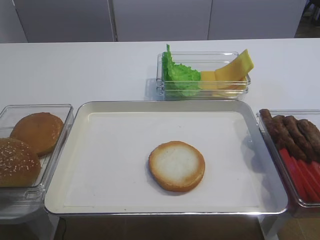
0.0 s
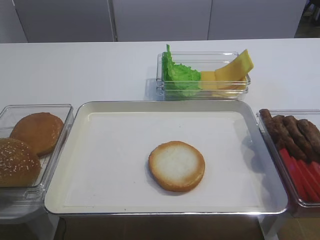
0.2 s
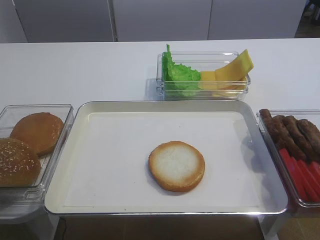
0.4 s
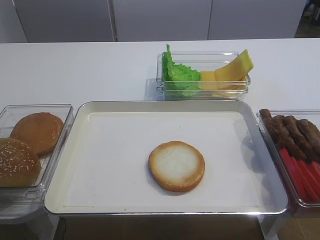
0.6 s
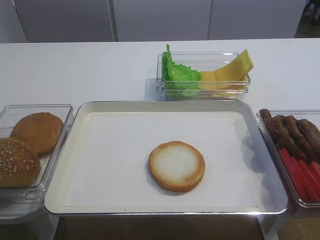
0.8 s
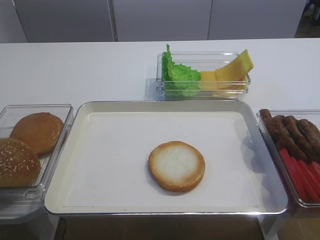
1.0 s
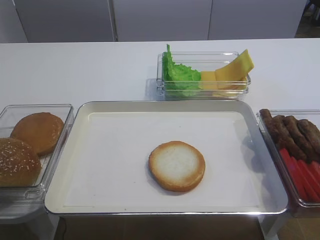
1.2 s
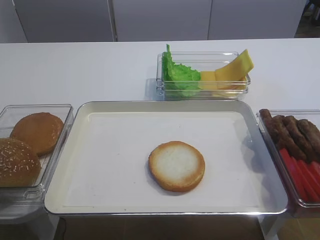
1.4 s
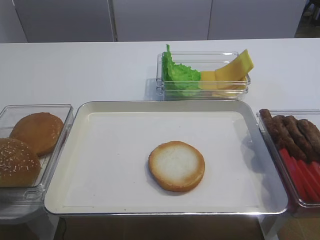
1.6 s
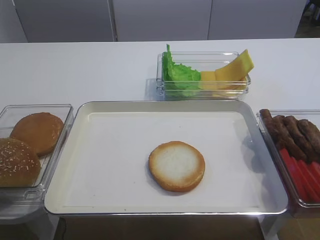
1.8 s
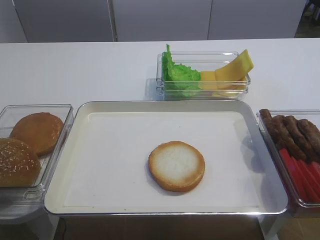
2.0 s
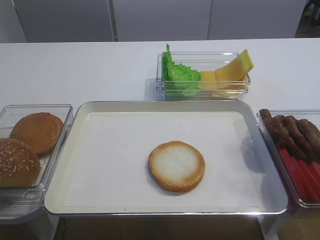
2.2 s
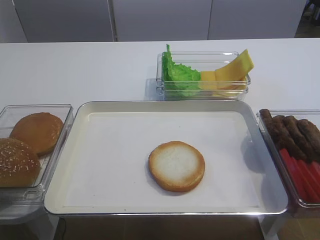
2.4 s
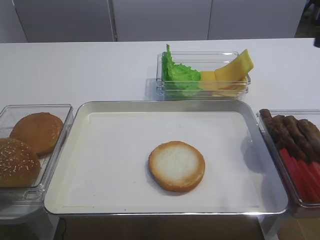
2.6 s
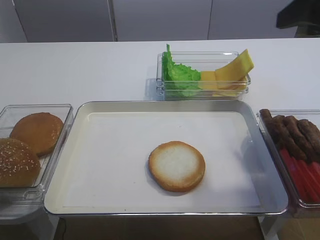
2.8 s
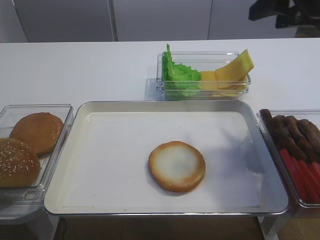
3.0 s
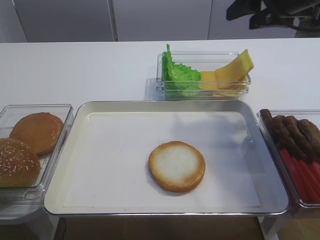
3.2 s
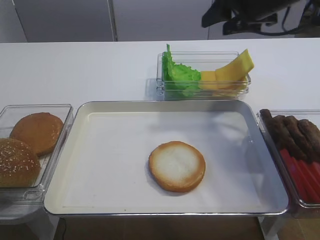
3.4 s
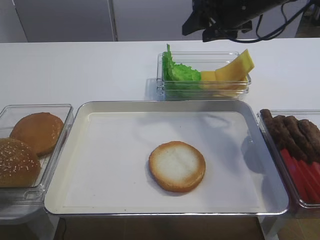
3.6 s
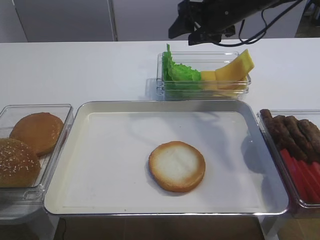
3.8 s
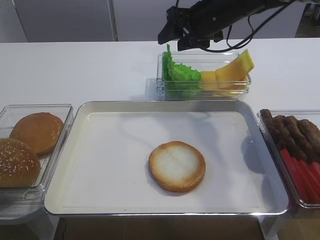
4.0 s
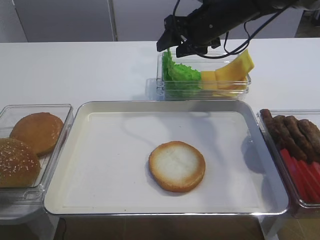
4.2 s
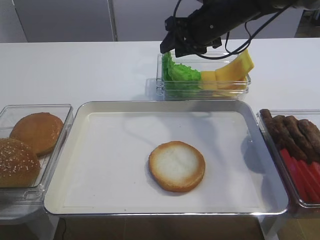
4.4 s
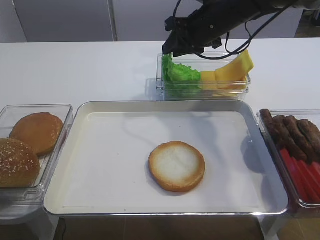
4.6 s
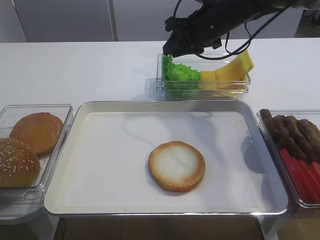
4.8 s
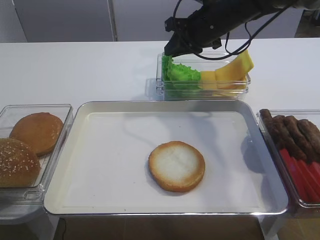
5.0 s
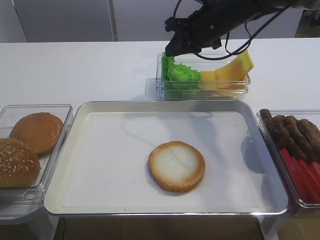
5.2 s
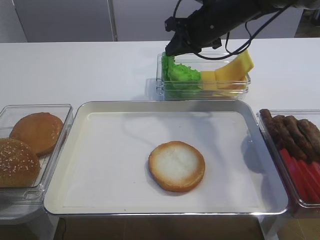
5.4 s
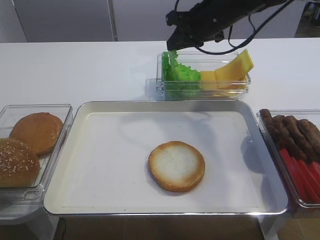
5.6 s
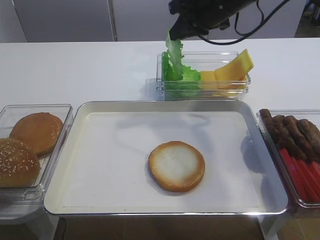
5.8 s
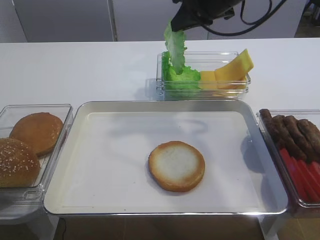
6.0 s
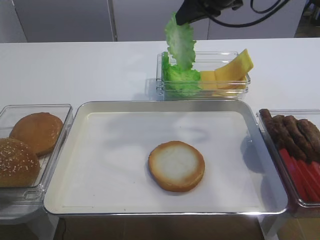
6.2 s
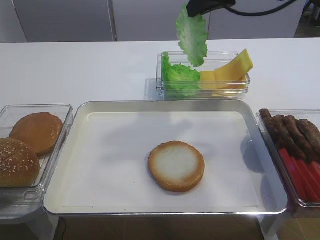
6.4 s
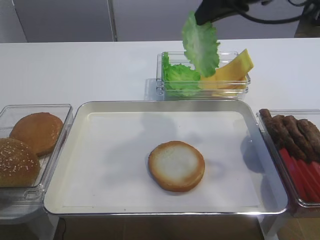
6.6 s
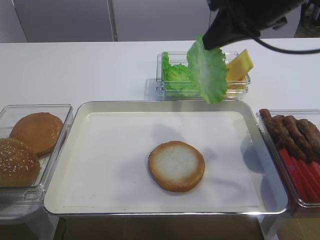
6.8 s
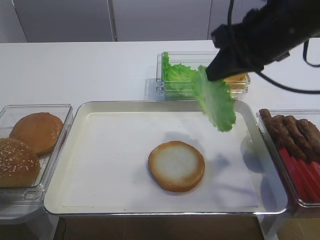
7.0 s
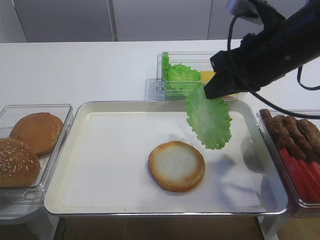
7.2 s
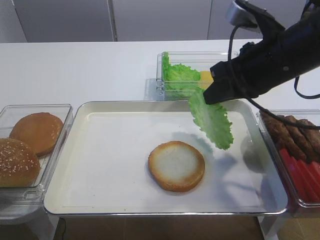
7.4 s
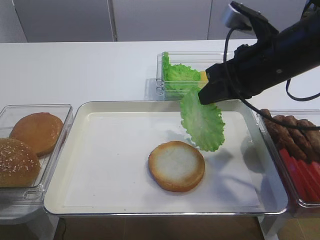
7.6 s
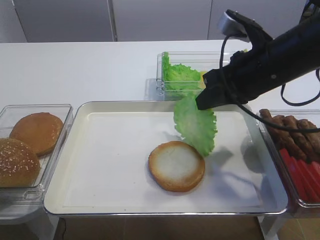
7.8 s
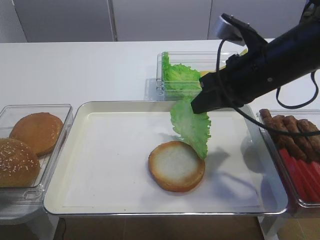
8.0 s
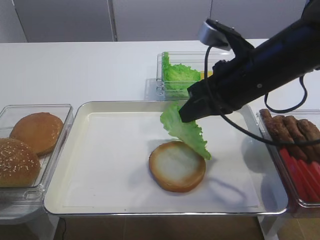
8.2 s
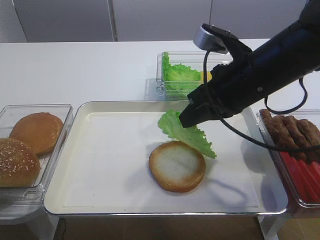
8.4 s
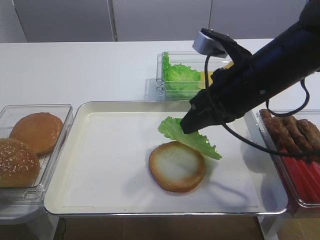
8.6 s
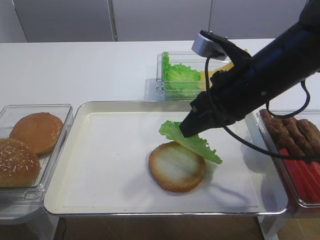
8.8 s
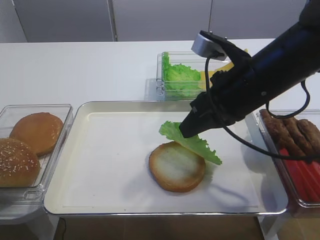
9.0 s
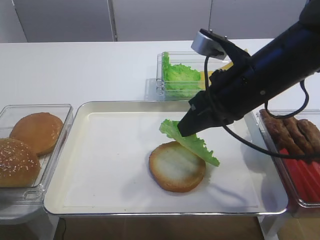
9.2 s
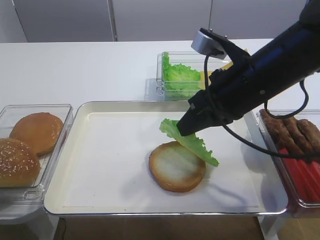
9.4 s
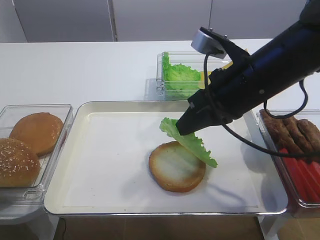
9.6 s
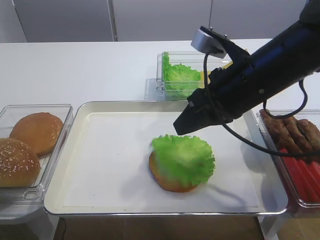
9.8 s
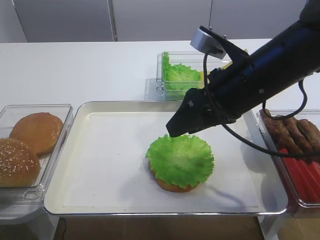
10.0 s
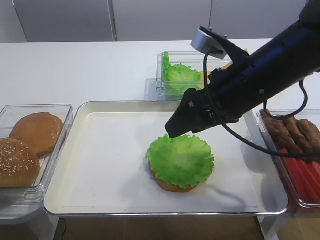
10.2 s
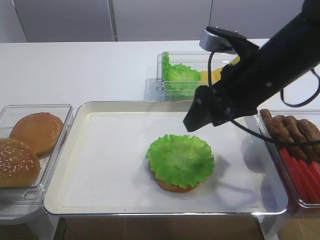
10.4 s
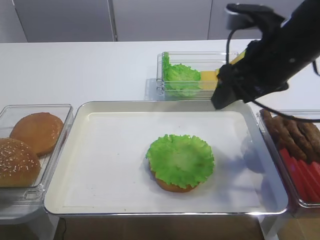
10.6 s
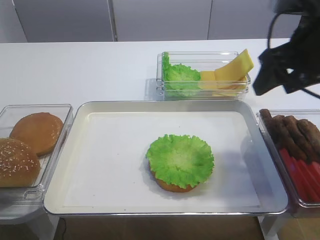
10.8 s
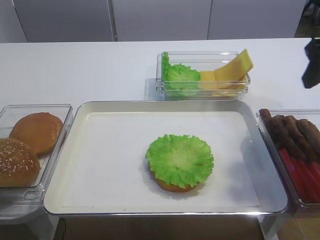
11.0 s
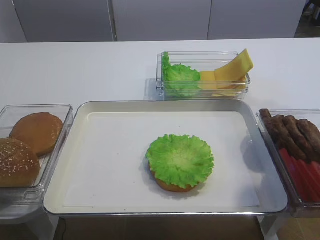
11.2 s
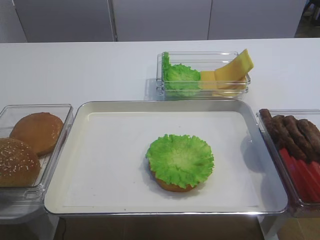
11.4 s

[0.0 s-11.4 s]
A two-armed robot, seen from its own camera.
Step, 0.0 to 6.0 s: Pick up the lettuce leaf with the right gripper.
Step, 6.2 to 9.8 s: Place the lettuce leaf on the bread slice with the right gripper.
1.4 to 2.8 s: The right gripper heads forward, covering about 25 cm.
2.8 to 4.2 s: The right gripper goes some 25 cm forward, to the left and downward.
4.2 to 5.6 s: The right gripper closes its fingers.
5.6 to 7.2 s: The right gripper moves backward, some 15 cm.
7.2 to 8.6 s: The grippers stay close to where they were, moving slightly.
8.6 to 10.0 s: The right gripper opens its fingers.
10.0 to 11.4 s: The right gripper heads to the right, upward and backward, covering some 20 cm.

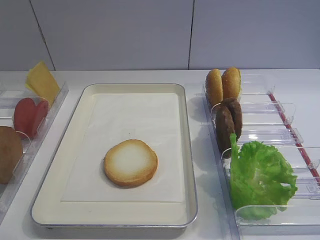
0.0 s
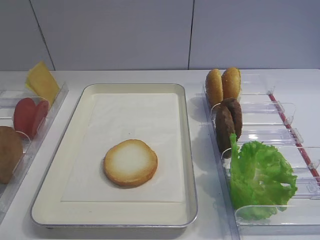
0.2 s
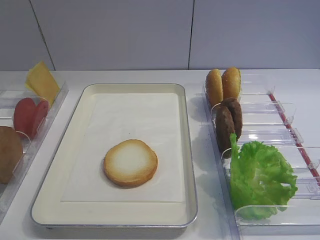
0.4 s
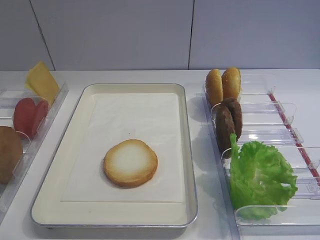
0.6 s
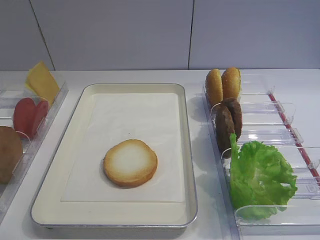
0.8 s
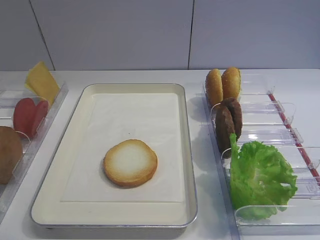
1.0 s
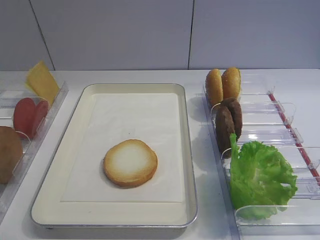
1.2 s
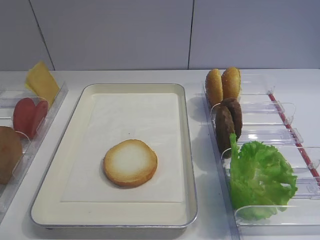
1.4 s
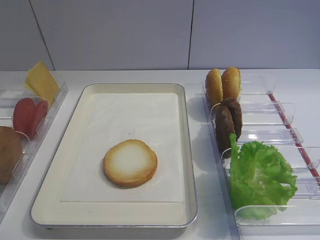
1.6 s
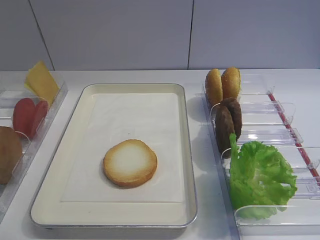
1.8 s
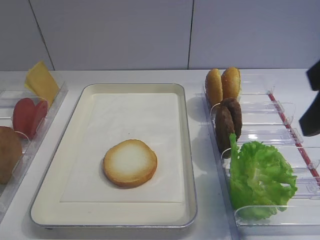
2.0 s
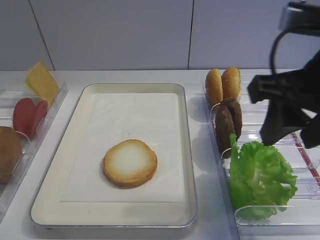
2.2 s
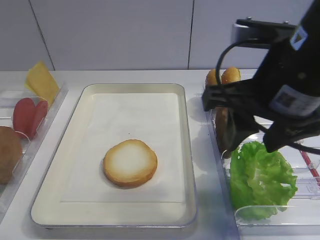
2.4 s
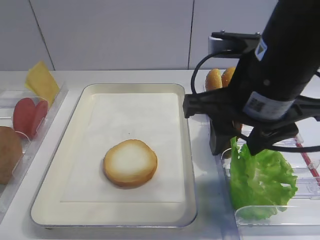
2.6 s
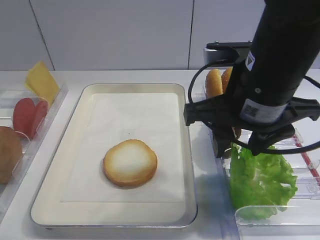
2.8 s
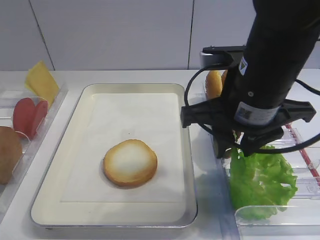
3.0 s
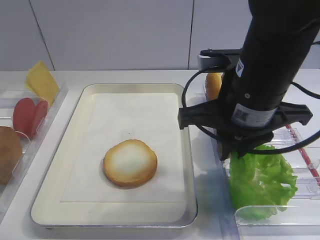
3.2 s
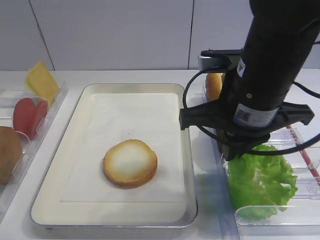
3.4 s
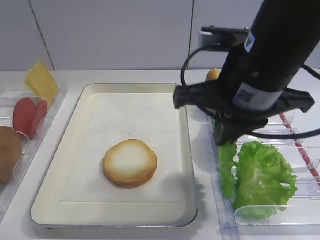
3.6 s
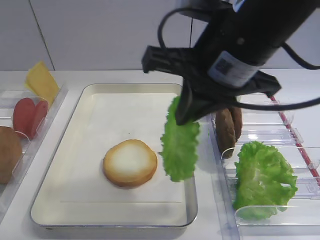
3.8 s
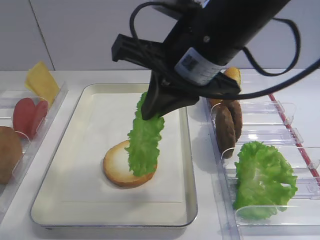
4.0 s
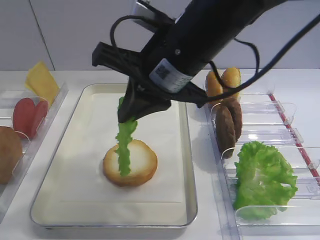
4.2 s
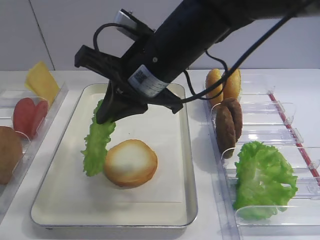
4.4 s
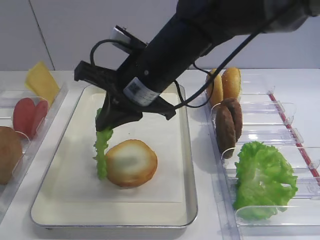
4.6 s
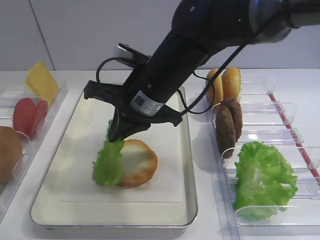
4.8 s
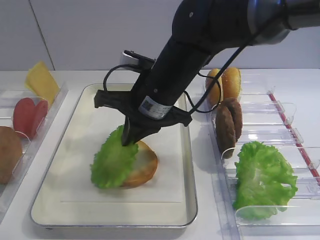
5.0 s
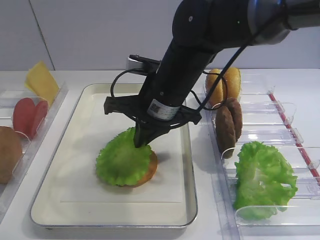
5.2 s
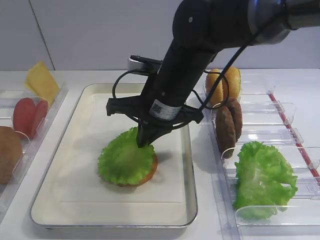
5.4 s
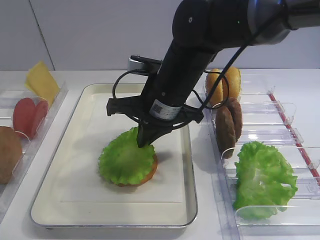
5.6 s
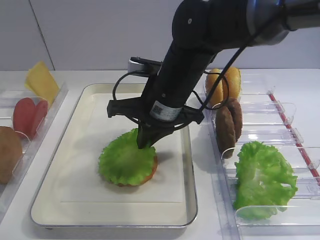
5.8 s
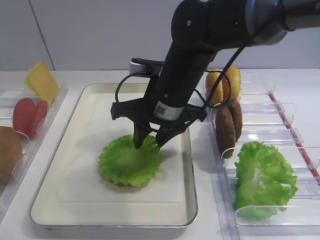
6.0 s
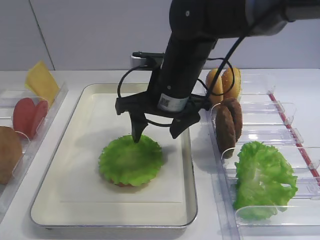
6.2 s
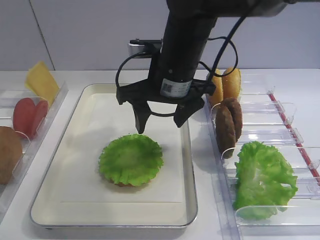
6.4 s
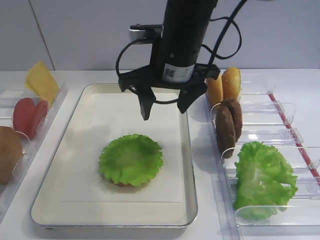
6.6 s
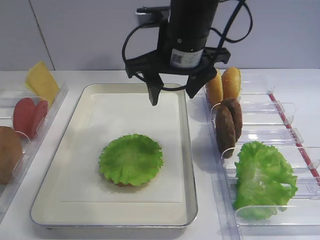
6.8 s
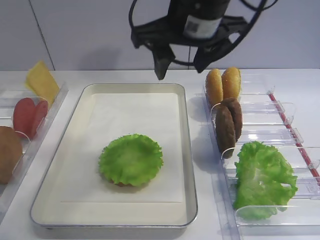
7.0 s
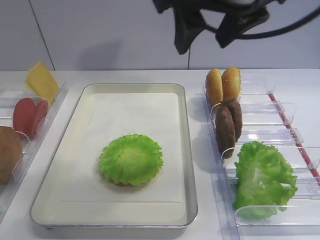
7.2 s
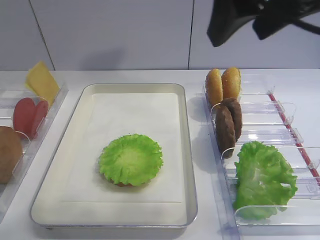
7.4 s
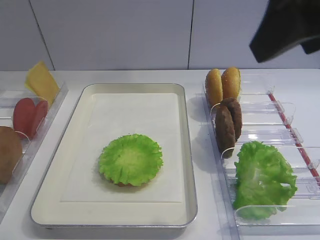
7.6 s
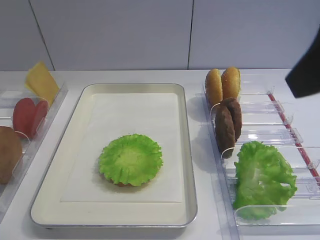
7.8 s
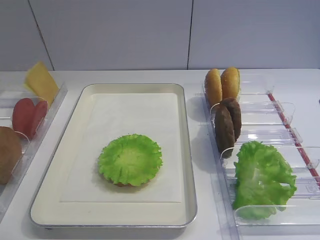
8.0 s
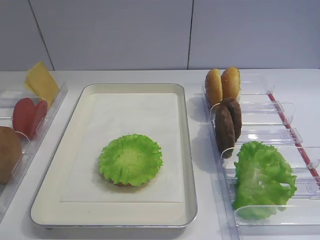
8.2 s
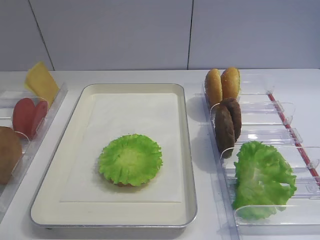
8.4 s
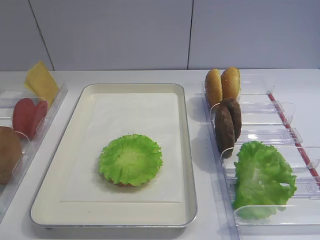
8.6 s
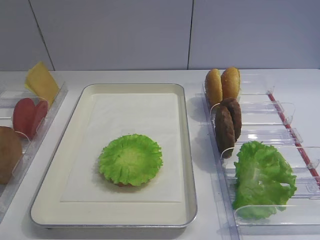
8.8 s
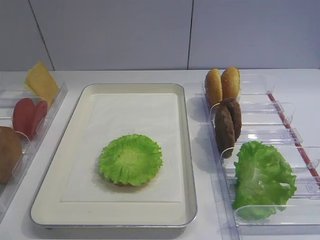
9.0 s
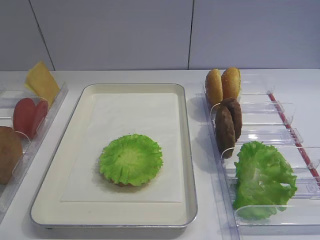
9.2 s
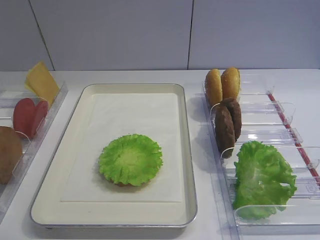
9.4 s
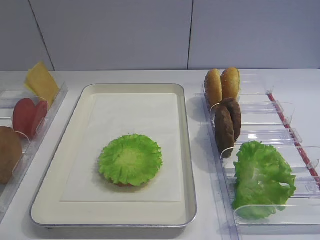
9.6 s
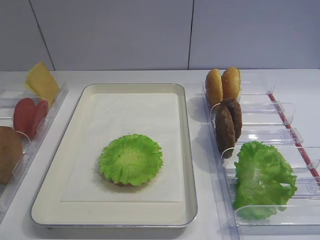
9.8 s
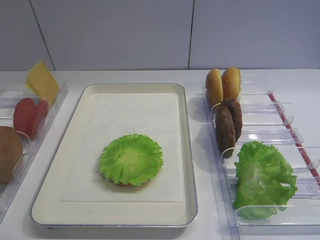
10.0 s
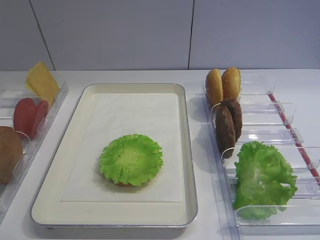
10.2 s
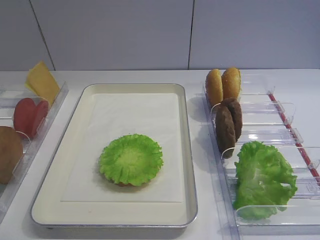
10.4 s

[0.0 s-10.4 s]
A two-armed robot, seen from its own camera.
Step, 0.0 to 3.4 s: Pick up the lettuce leaf with the right gripper.
Step, 3.6 to 6.2 s: Place the lettuce leaf on the bread slice with the right gripper.
1.4 to 3.0 s: The right gripper heads forward and to the left, covering some 20 cm.
3.0 to 4.4 s: The right gripper shifts approximately 10 cm to the left, and closes.
4.4 to 6.0 s: The right gripper heads downward, covering approximately 5 cm, and opens its fingers.
6.0 to 7.4 s: The right gripper is displaced upward, to the right and backward by about 25 cm, and opens up.
7.4 to 9.0 s: The right gripper moves backward, to the right and downward, roughly 30 cm.
